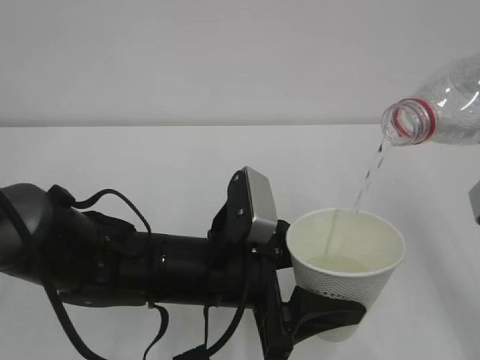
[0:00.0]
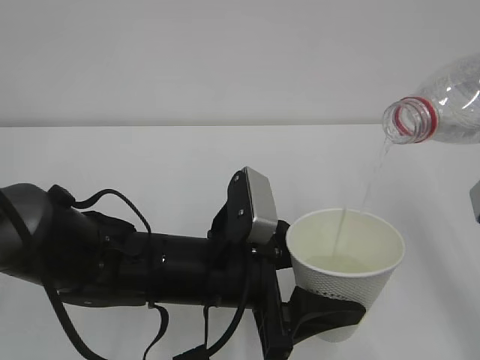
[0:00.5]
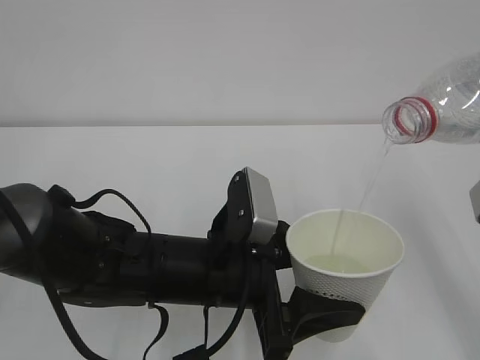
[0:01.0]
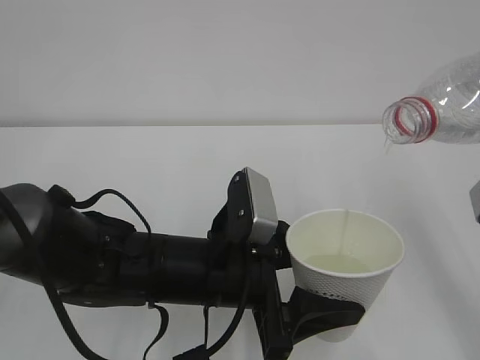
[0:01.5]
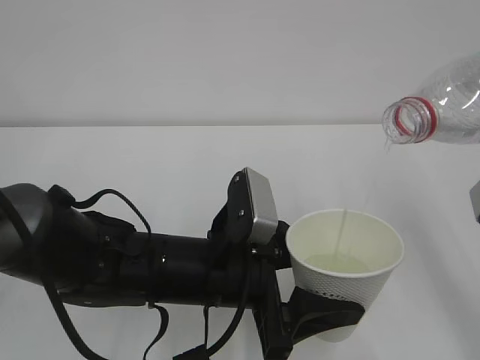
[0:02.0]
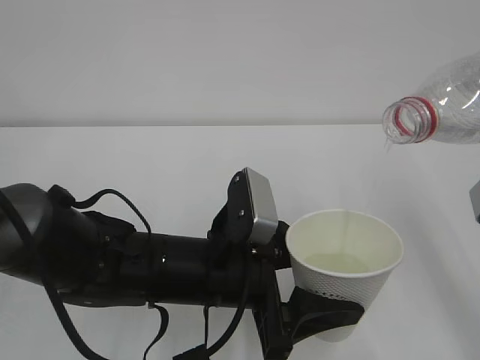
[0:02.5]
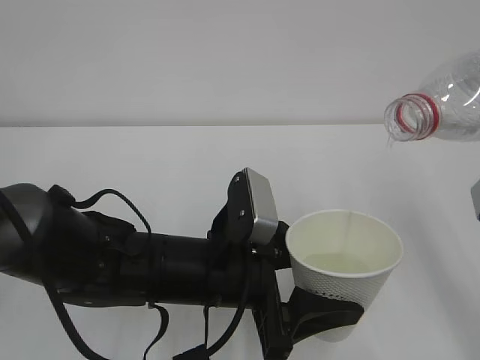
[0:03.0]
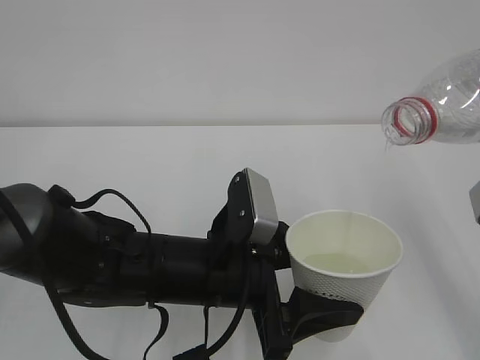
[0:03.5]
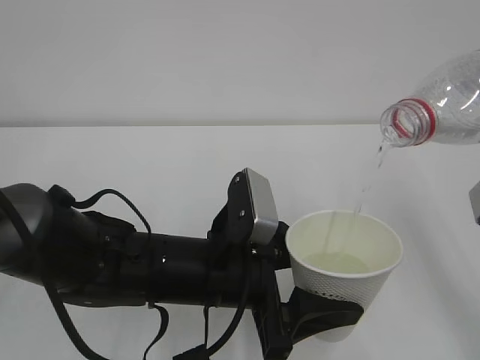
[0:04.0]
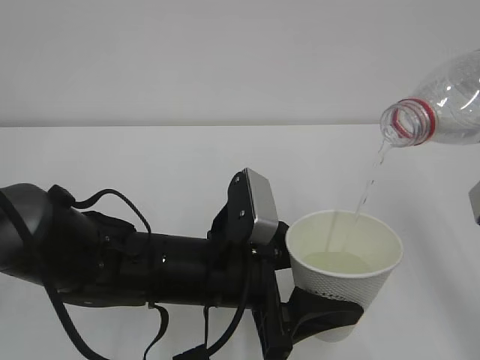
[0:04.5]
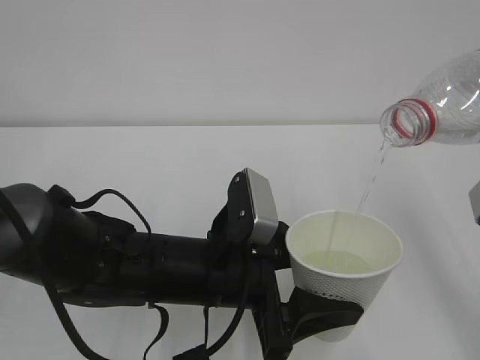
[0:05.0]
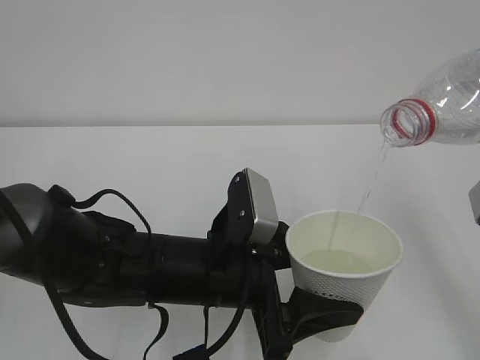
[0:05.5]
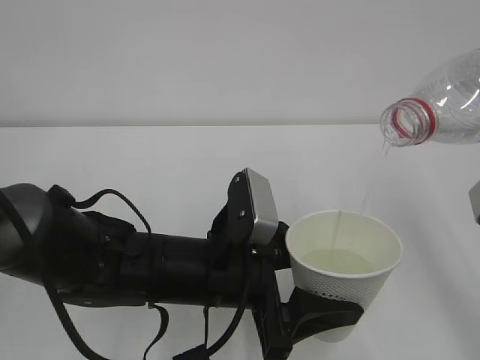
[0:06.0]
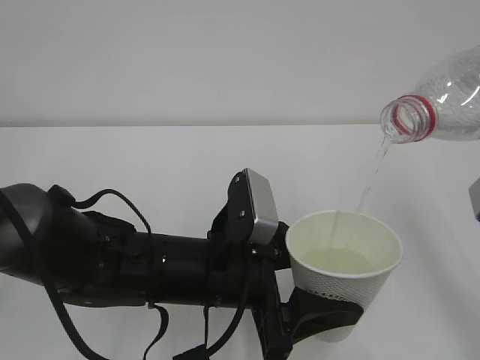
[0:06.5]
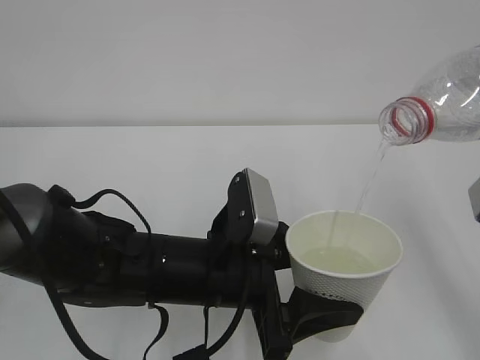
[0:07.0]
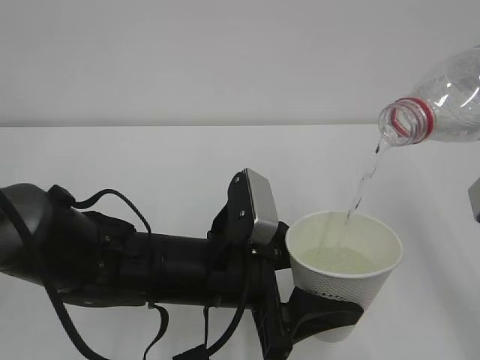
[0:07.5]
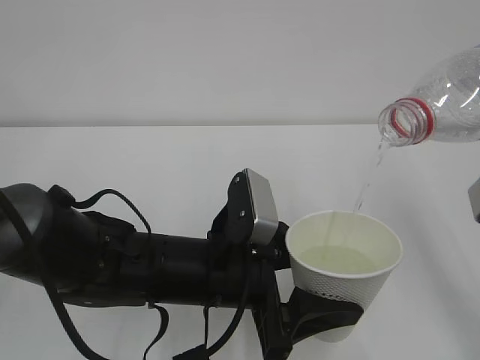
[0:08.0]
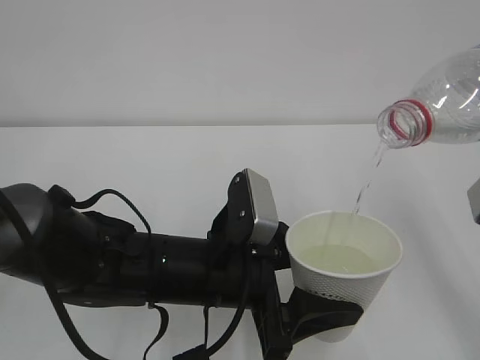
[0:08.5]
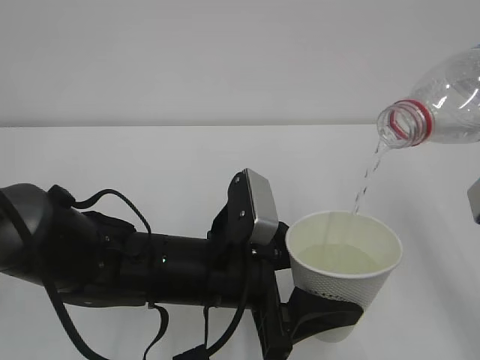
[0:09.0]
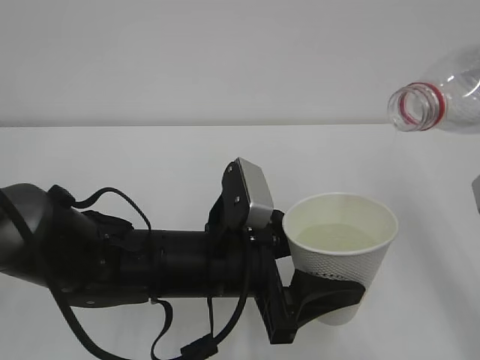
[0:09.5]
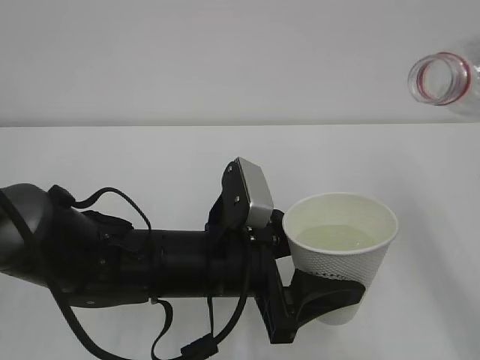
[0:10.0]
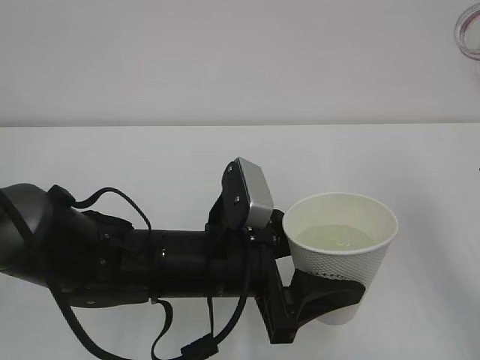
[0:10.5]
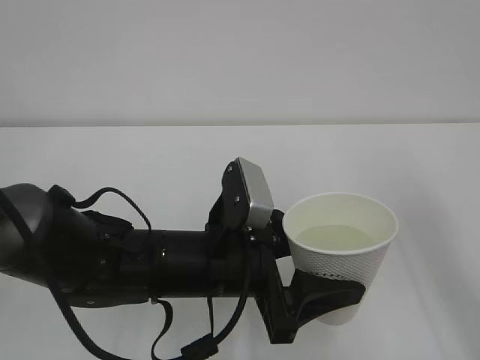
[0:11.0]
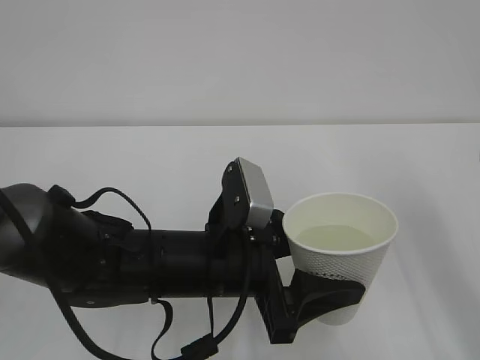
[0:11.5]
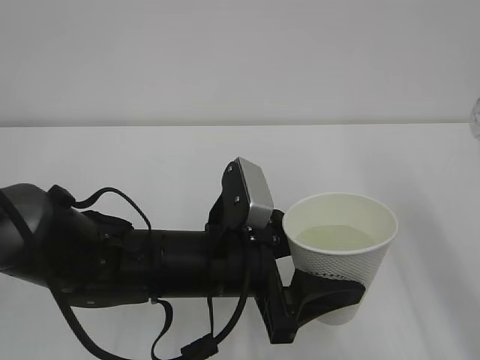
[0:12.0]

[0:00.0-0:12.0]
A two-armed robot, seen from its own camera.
0:00.0 to 0:08.0: Neither gripper changes place.
0:08.0 to 0:10.0: The grippers stay close to where they were, moving slightly.

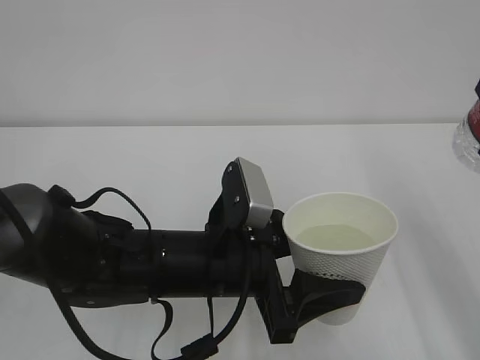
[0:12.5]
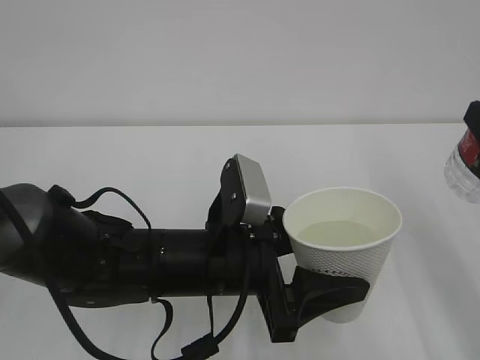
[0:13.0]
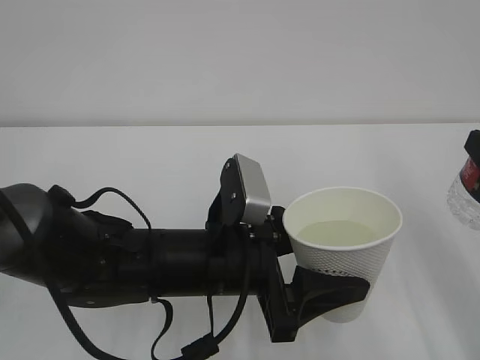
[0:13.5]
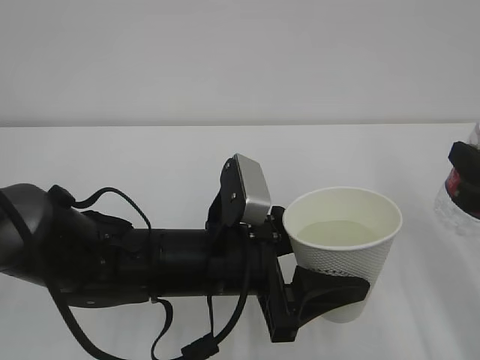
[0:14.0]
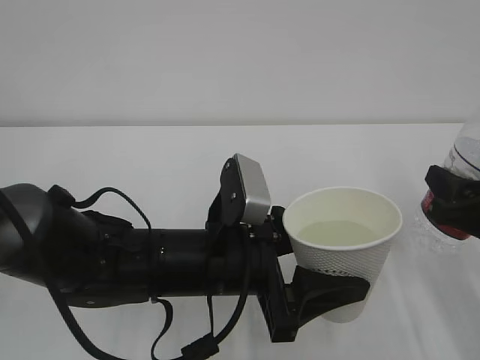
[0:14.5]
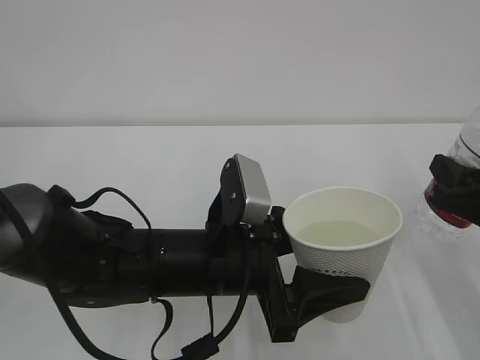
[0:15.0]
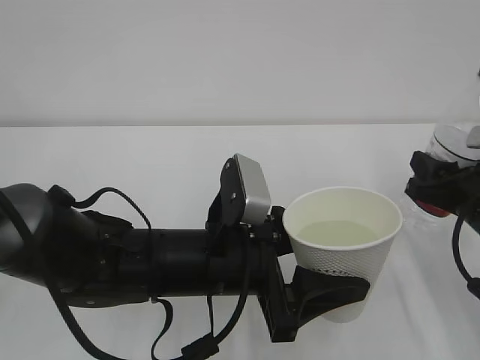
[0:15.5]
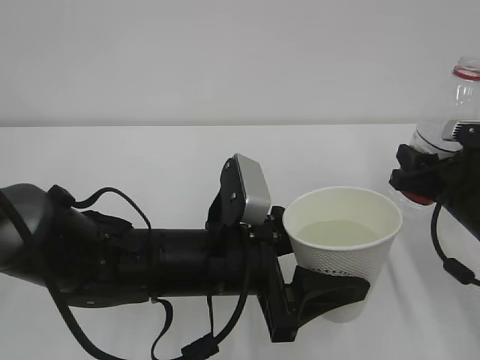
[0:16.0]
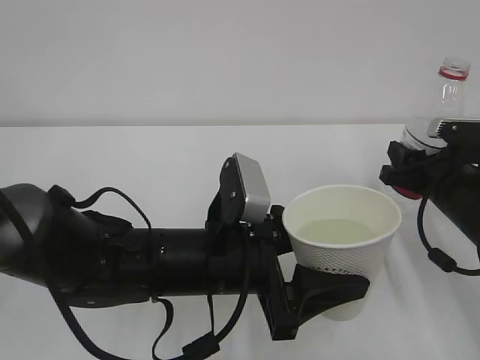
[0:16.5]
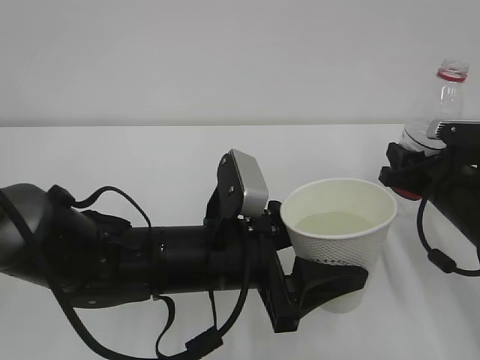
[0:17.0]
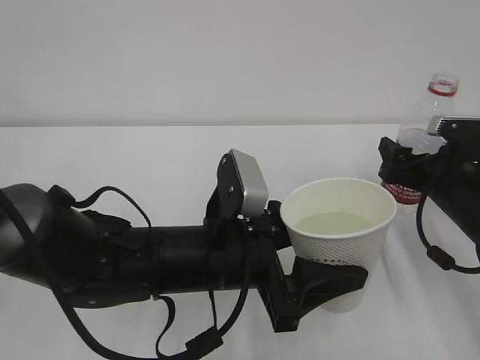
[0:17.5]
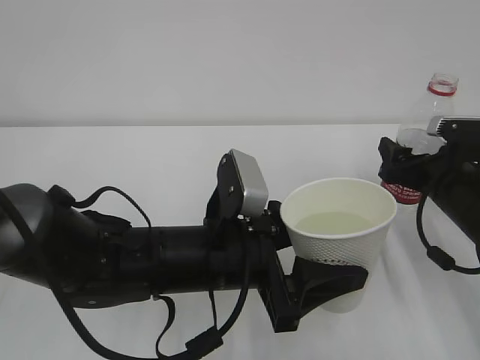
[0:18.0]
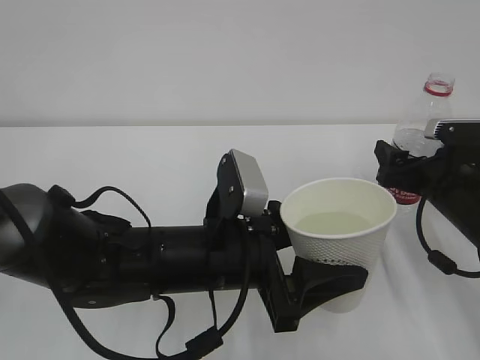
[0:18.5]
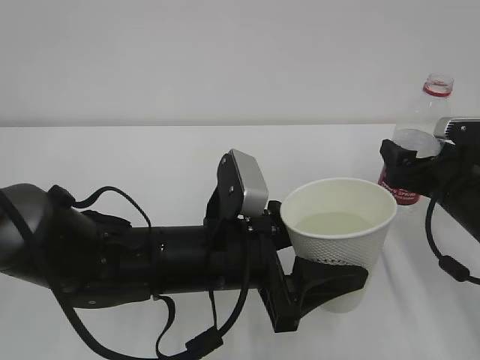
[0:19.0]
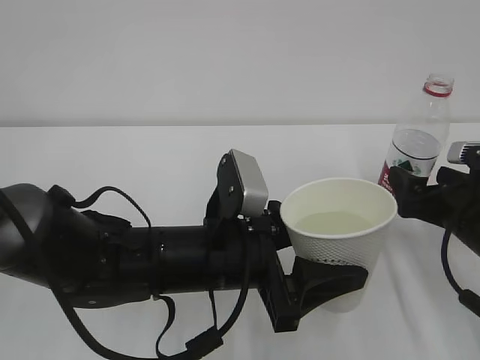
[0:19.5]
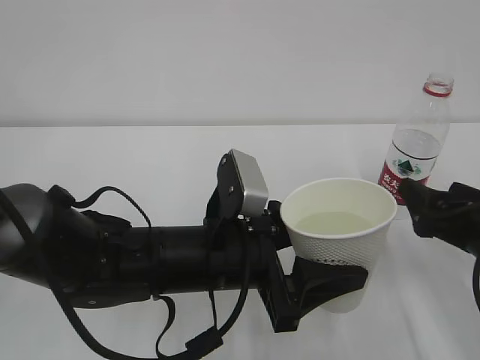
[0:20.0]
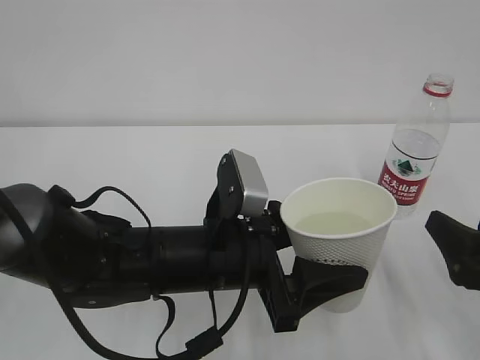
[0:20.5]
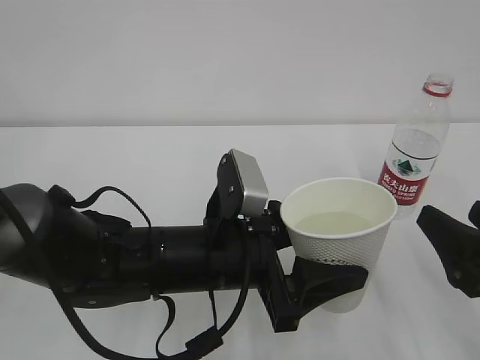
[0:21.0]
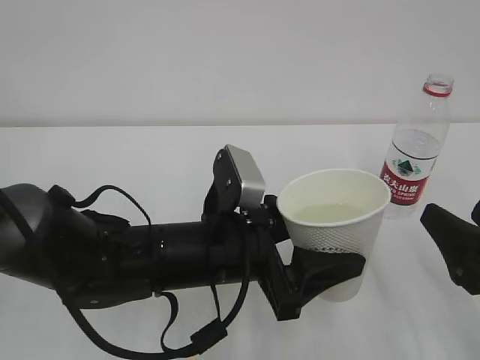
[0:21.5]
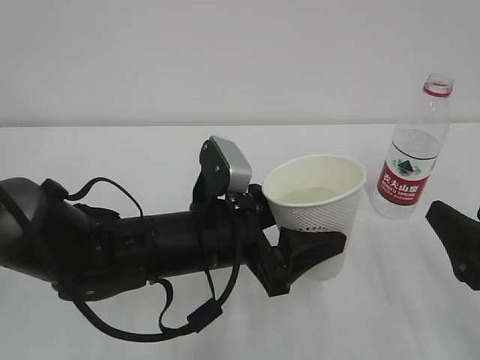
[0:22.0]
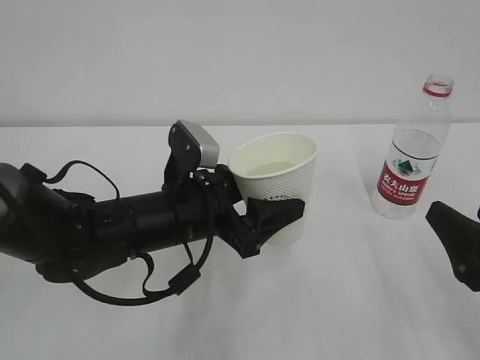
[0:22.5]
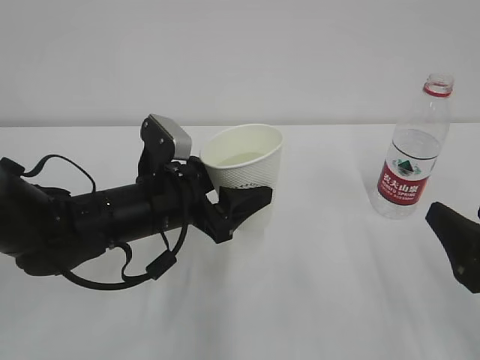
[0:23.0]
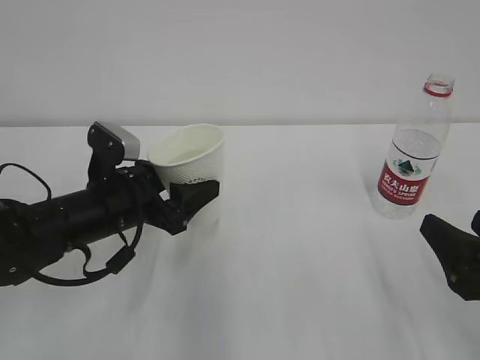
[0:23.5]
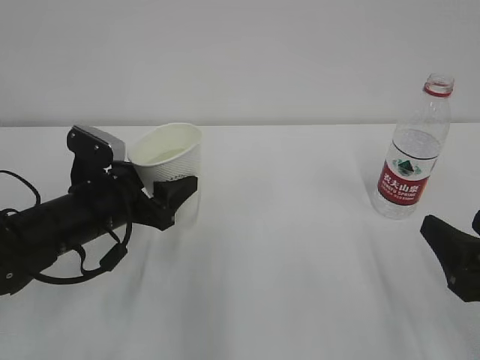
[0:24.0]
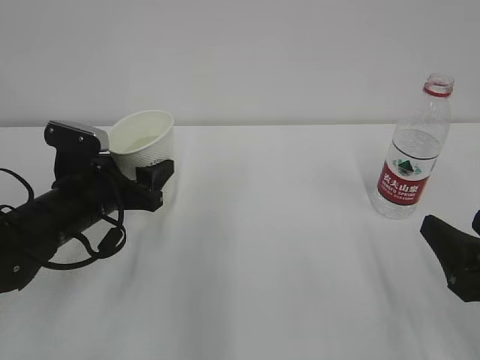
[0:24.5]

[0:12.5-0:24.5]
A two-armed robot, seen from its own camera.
0:12.5 to 0:14.5: The right gripper goes roughly 10 cm downward.
0:14.5 to 0:16.5: The right gripper goes approximately 10 cm forward.
0:16.5 to 0:18.5: The right gripper opens.
0:18.5 to 0:20.5: The right gripper is displaced backward by roughly 15 cm.
0:20.5 to 0:22.5: The left gripper moves forward, some 5 cm.
0:22.5 to 0:24.5: The left gripper shifts approximately 10 cm to the left.

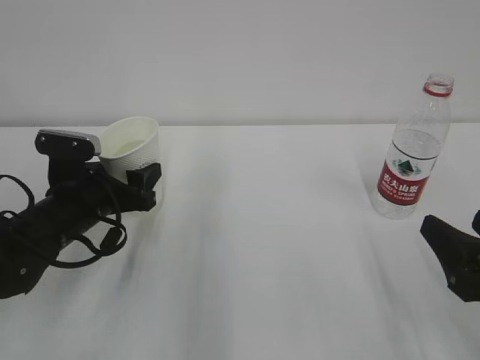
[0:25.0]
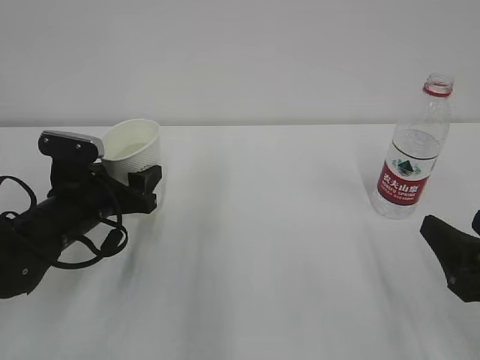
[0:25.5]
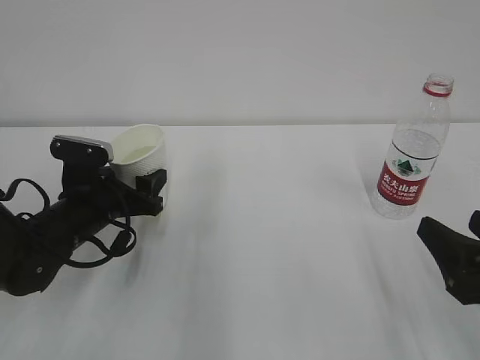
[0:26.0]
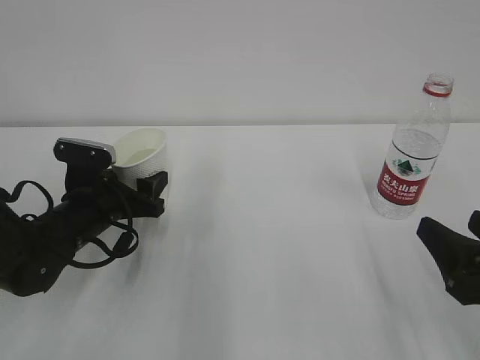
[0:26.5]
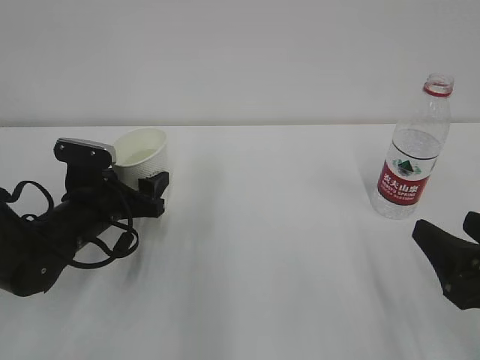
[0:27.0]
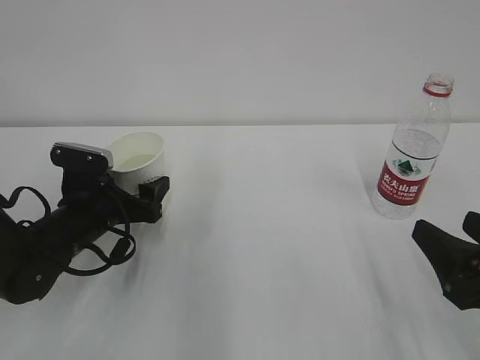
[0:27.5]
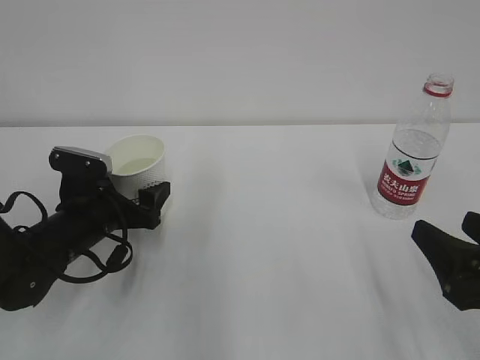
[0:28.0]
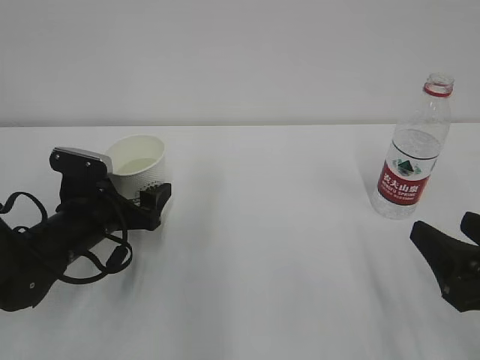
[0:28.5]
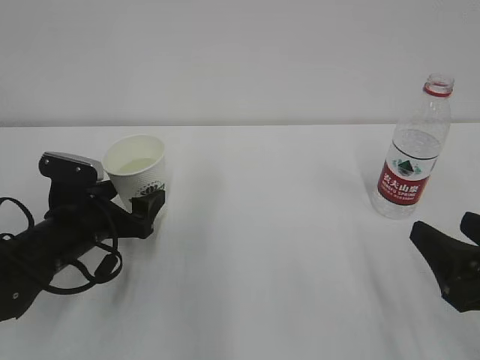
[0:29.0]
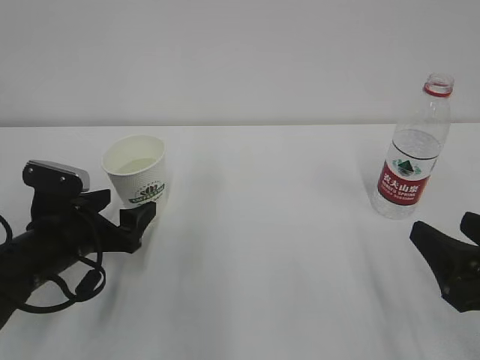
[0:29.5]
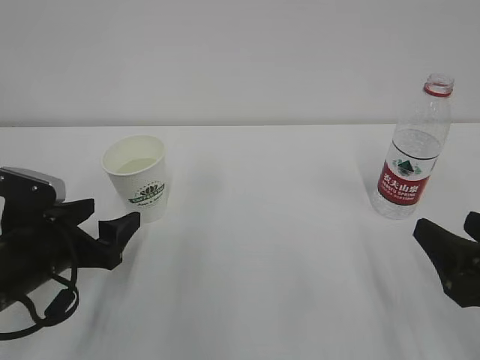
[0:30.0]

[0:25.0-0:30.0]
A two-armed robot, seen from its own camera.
0:25.0 to 0:27.5: The left gripper opens up.
0:27.5 to 0:30.0: The left gripper is displaced backward by some 10 cm.
